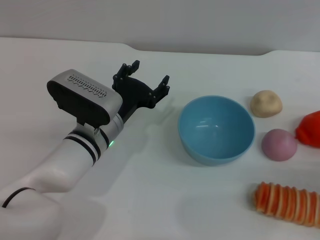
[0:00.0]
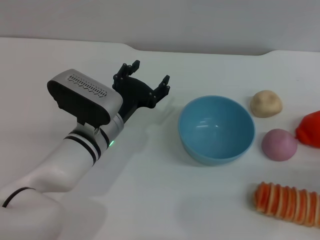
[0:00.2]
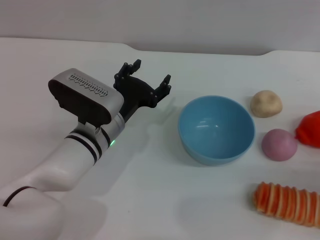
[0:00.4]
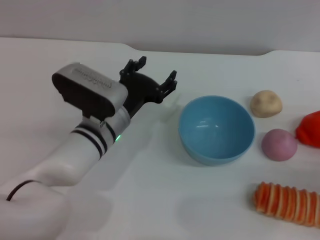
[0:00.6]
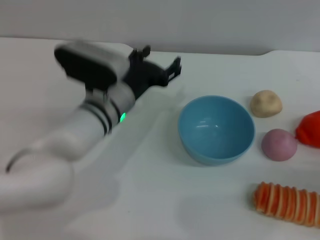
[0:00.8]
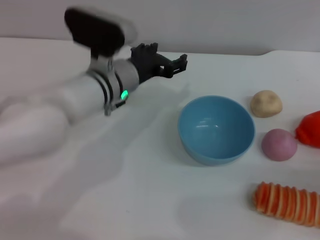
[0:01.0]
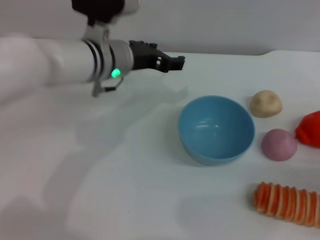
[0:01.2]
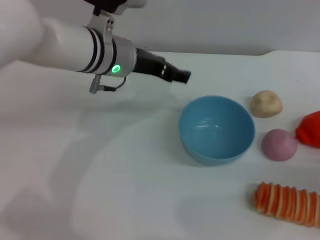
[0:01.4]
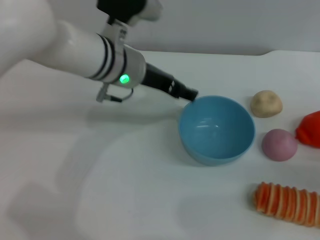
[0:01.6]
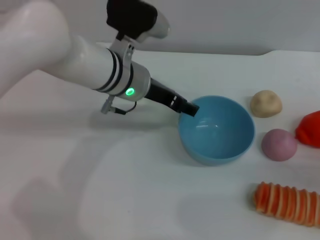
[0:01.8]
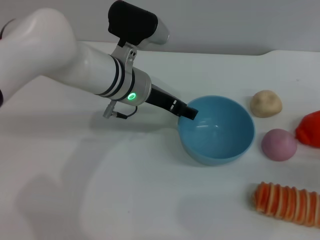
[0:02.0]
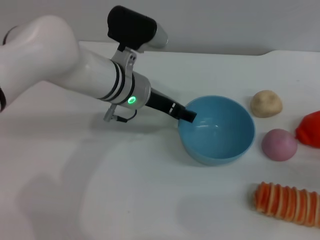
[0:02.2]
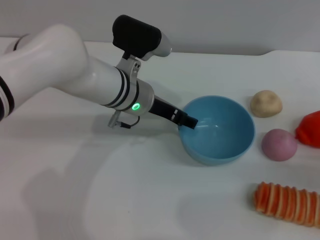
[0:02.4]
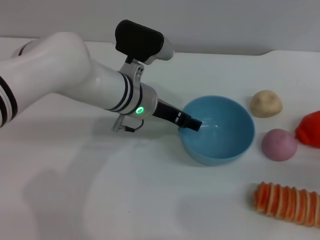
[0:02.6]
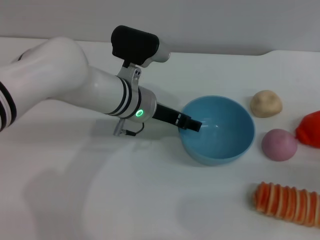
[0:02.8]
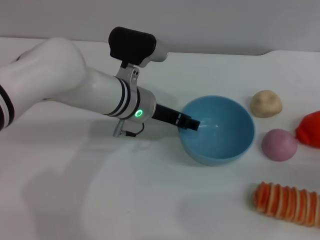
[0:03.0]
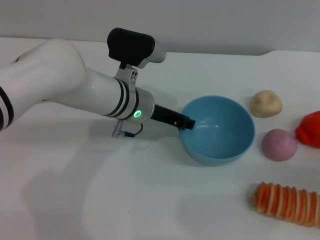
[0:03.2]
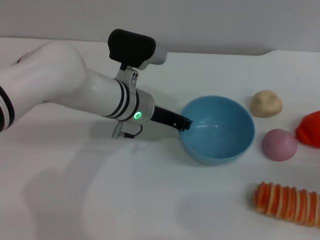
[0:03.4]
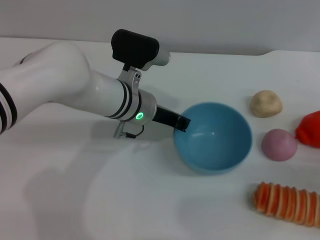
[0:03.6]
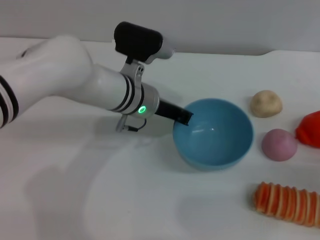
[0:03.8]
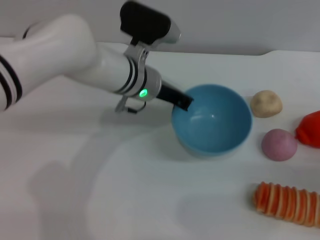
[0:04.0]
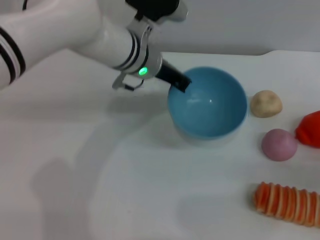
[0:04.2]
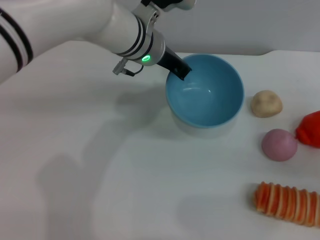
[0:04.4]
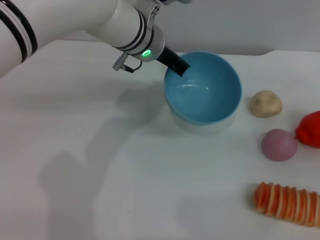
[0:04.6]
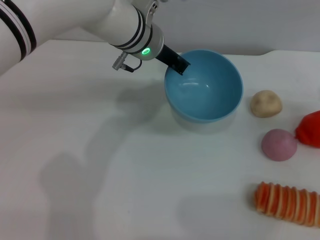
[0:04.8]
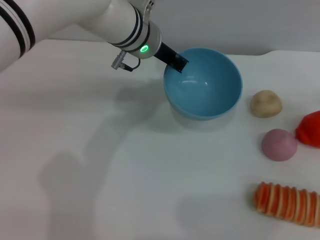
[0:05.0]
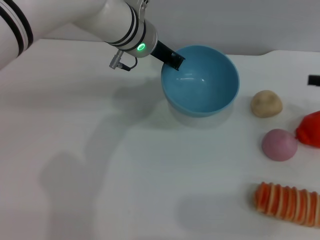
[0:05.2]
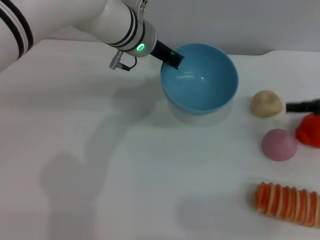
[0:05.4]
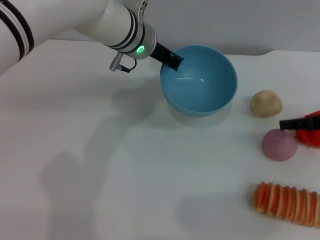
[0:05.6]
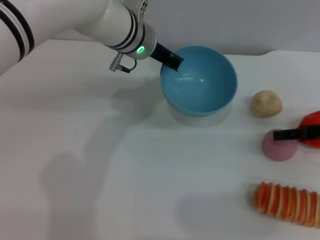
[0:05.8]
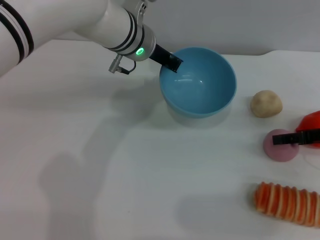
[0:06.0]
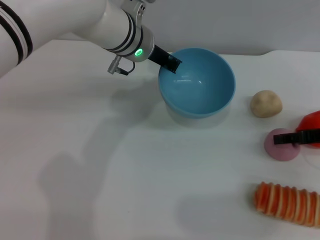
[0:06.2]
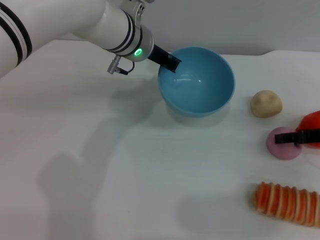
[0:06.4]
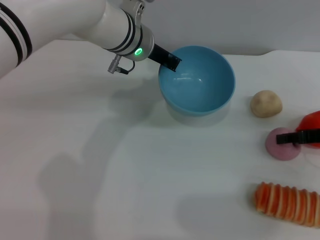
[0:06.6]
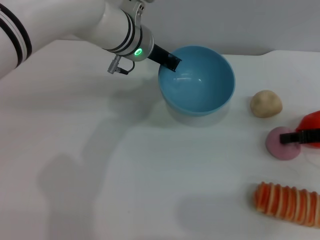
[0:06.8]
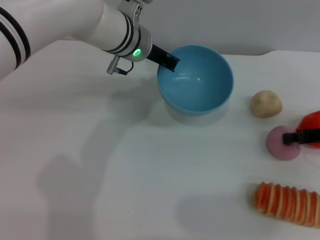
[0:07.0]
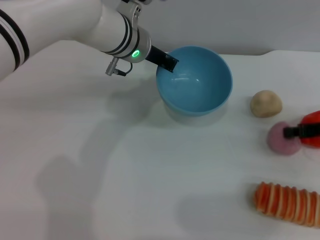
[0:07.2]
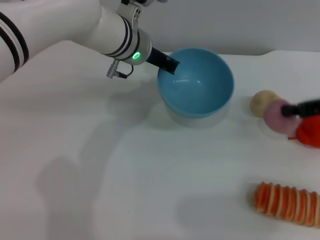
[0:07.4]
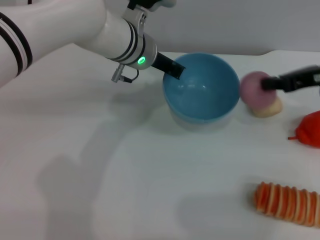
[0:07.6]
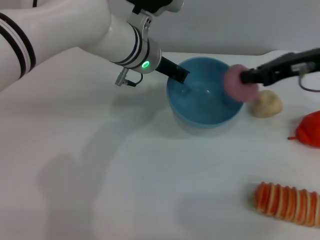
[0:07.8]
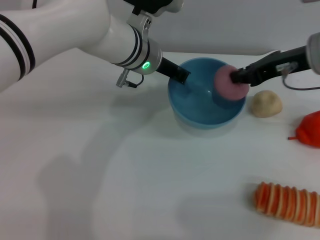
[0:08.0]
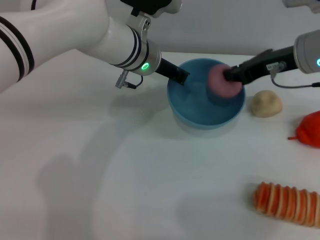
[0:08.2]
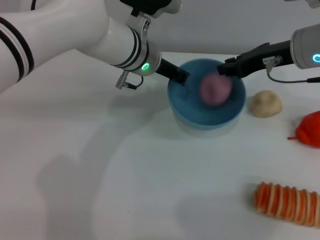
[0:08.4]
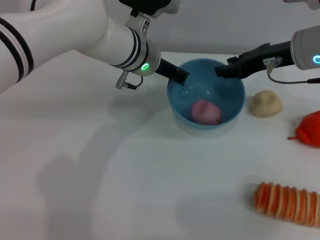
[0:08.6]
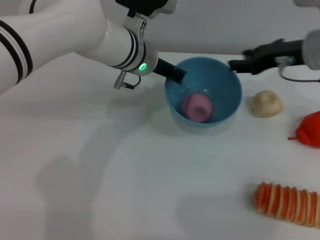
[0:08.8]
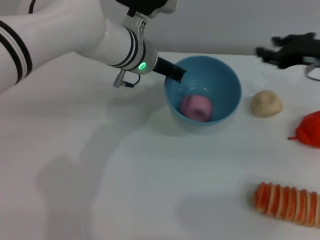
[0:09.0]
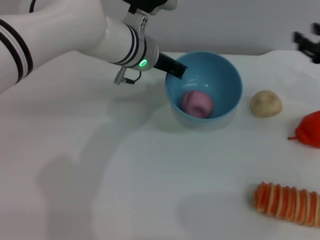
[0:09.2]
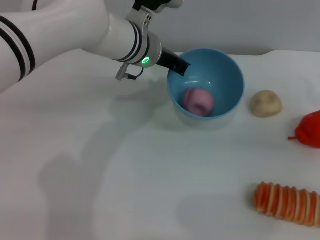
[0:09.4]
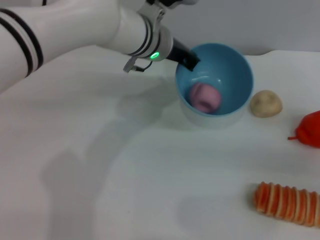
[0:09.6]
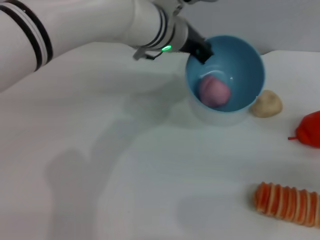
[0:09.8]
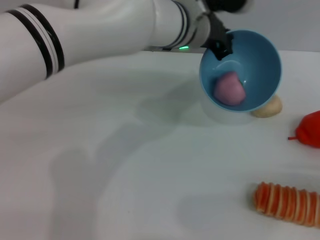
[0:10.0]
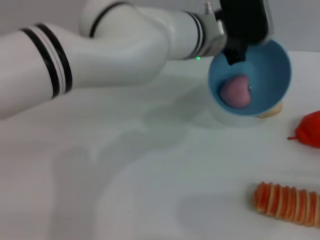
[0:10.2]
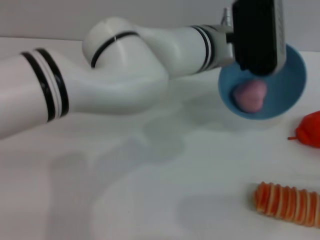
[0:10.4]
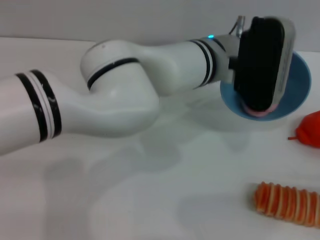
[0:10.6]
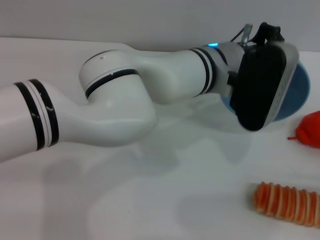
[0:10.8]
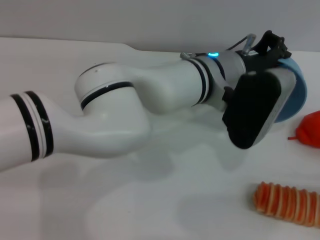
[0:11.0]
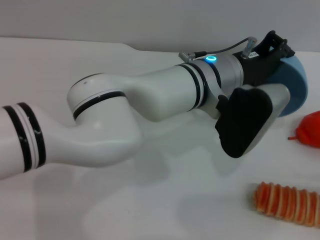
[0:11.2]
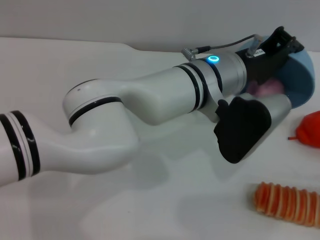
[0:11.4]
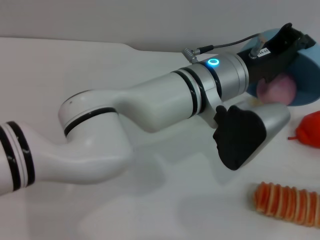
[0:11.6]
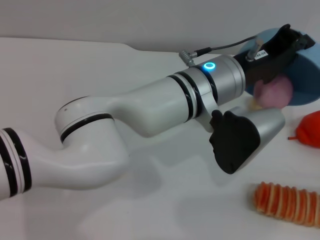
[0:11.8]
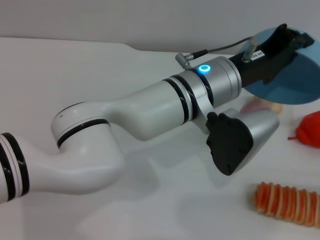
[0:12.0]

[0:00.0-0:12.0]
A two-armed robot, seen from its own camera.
Task of the whole recording: put the peach into the blue bowl and pour it out repeatedly.
Step, 0.0 to 4.0 s: Pick up the bowl with the left gripper.
Step, 4.2 to 7.2 s: Pick up the peach with the right gripper.
Step, 7.4 to 8.6 s: Place the peach into the bowl.
0.0 to 1.6 s: The left gripper shifts approximately 15 cm upward and forward.
1.6 to 3.0 s: The left gripper goes some 5 cm downward.
3.0 to 4.4 s: The left gripper shifts approximately 5 cm upward, and closes.
4.4 to 6.0 s: The right gripper travels upward and forward by some 10 cm.
6.0 to 7.6 s: The right gripper is displaced upward by about 10 cm, and closes up.
7.6 to 9.0 s: The right gripper opens its fingers.
9.0 to 10.4 s: The left gripper moves to the right, about 10 cm. Meanwhile the right gripper travels backward, downward and to the right by some 25 cm.
10.4 to 12.0 s: The left gripper shifts some 5 cm backward.

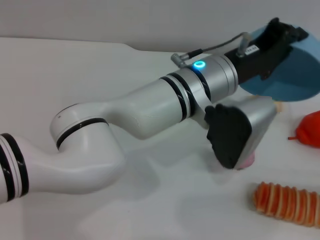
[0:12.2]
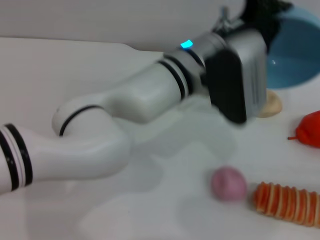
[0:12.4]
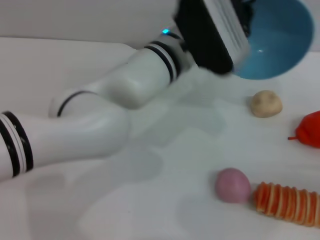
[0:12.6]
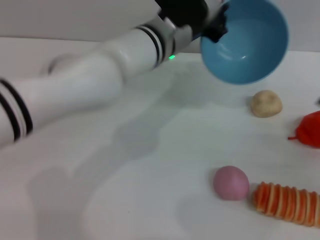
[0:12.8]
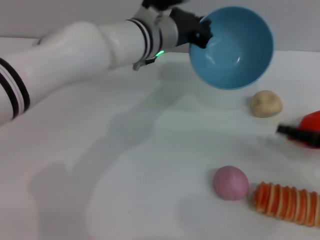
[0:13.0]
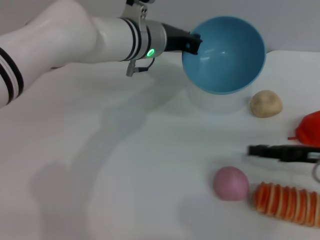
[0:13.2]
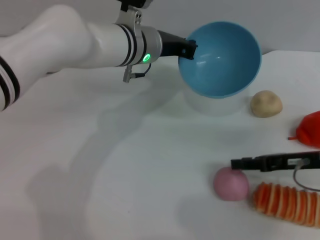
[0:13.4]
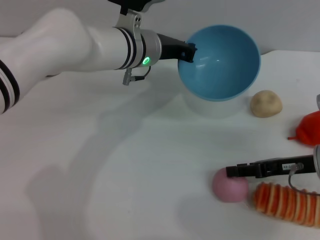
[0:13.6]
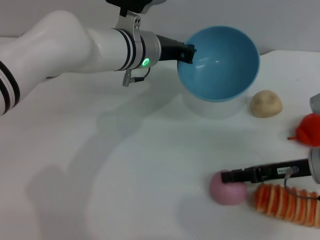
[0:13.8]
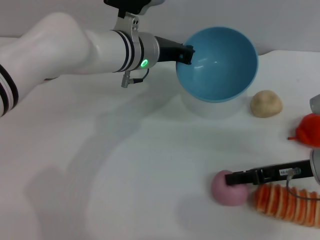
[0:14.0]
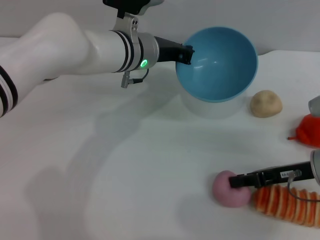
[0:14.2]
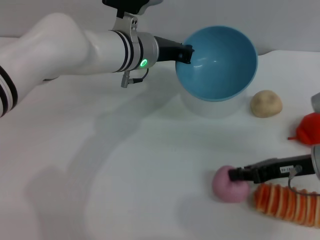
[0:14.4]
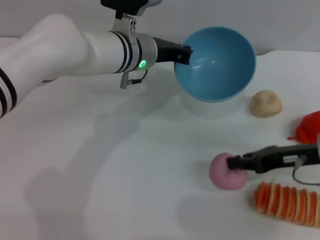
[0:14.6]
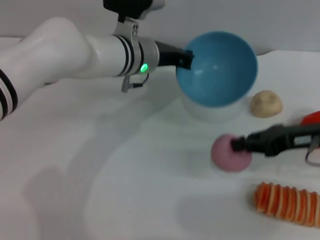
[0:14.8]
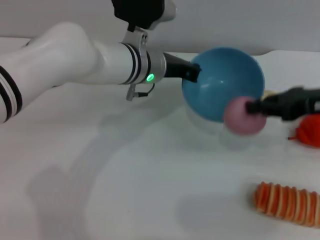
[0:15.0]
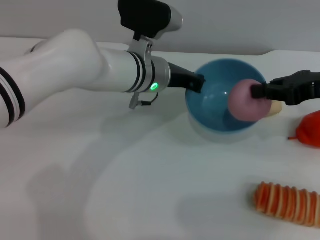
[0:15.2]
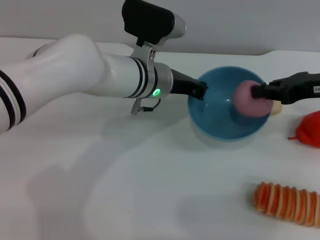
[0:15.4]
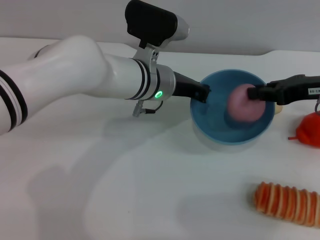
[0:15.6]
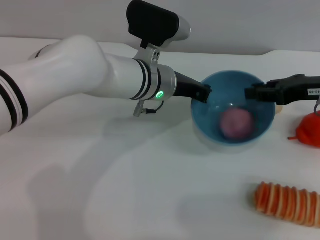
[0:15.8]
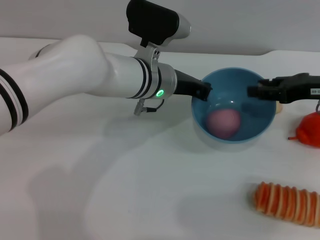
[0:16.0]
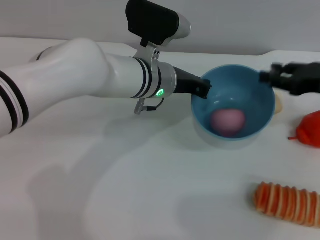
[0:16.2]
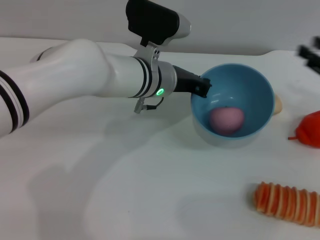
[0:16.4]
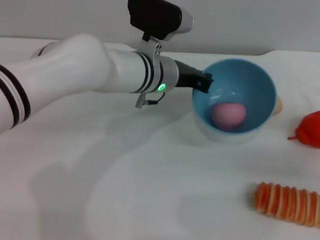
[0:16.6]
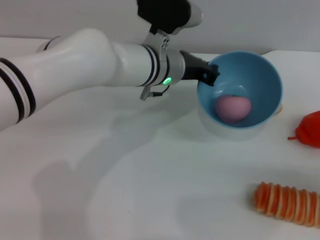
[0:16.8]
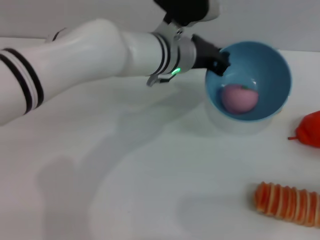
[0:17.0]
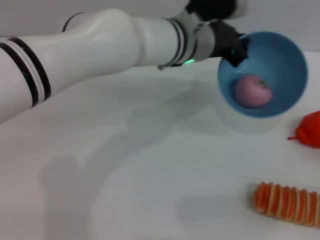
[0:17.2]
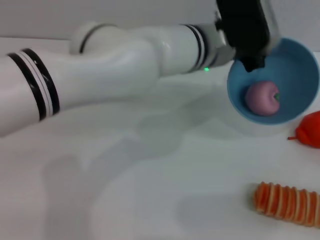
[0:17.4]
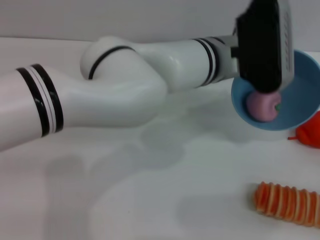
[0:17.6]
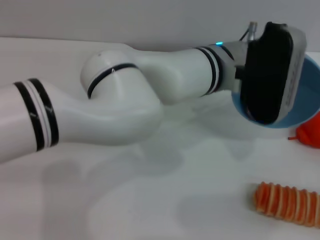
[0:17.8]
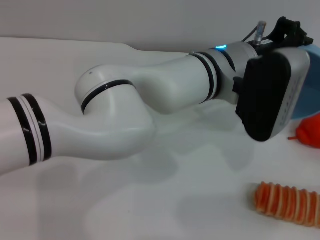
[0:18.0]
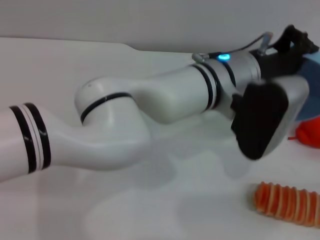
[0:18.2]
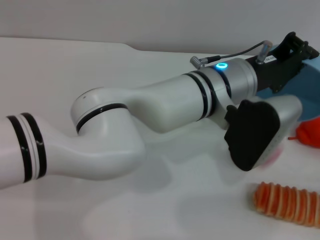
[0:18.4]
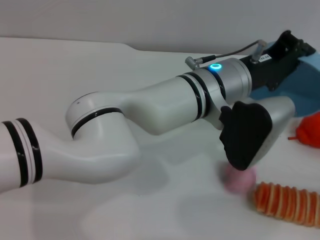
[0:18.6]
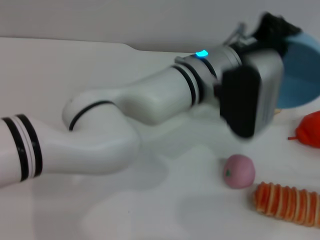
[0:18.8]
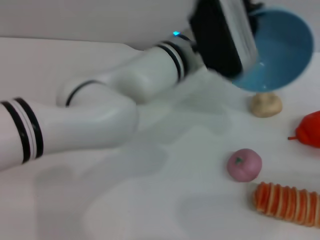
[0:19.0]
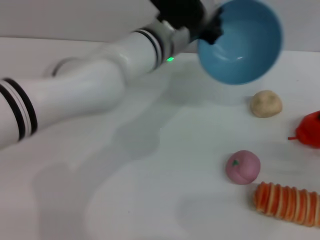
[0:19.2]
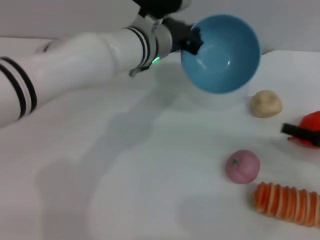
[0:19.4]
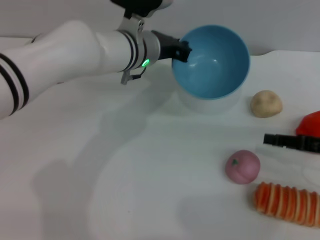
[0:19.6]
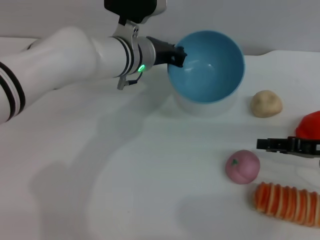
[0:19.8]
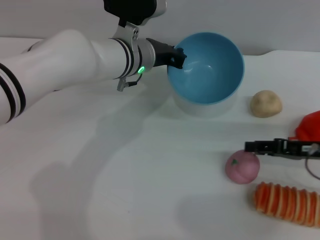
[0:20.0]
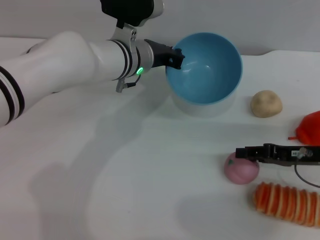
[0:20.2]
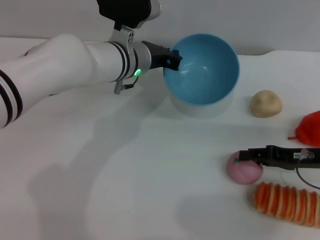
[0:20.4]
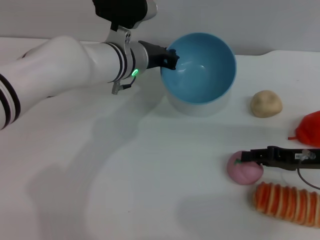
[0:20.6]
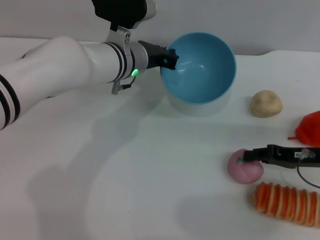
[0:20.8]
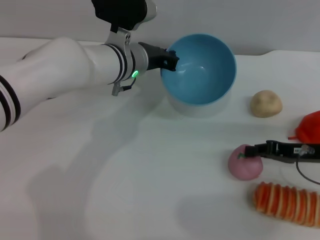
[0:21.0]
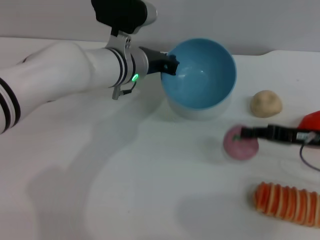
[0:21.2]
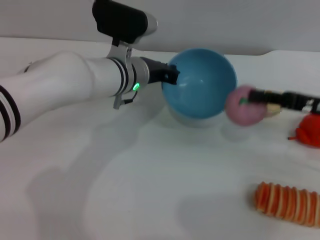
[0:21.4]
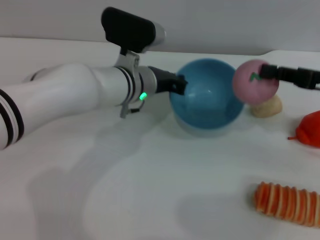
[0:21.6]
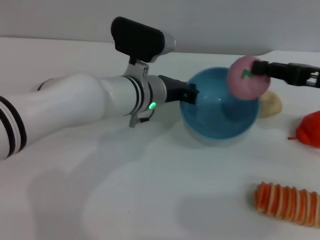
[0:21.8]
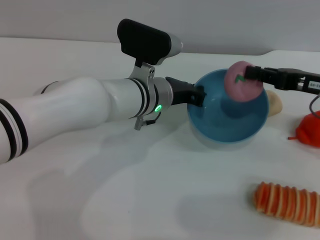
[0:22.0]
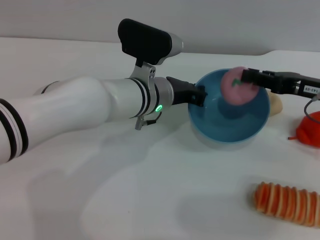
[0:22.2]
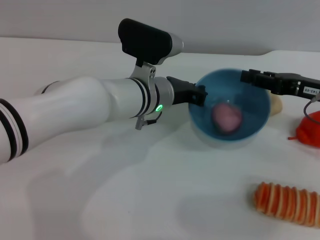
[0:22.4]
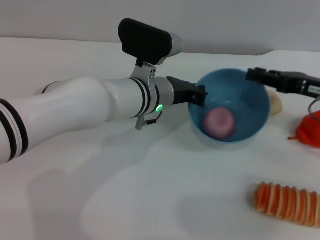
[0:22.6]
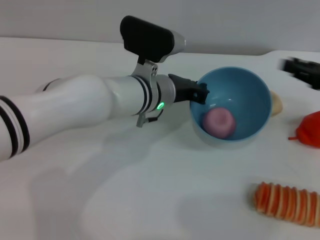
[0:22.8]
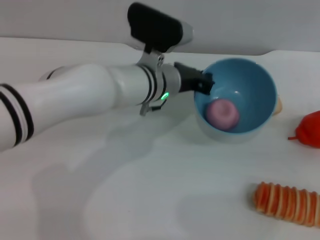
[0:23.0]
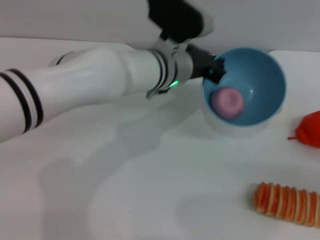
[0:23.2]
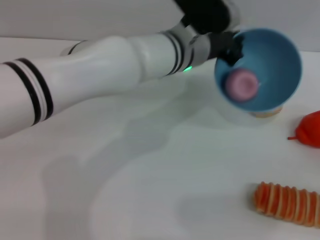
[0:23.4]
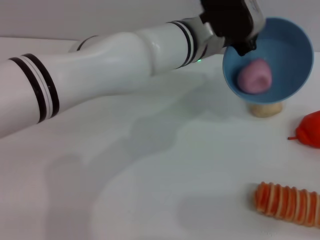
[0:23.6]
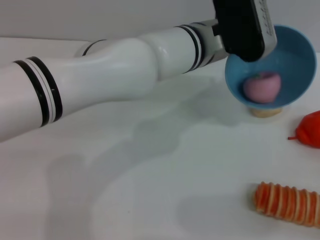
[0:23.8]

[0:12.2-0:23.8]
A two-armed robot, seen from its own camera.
Task of the whole recording: put the peach into the blue bowl and pour it out repeatedly.
Step, 12.4 to 14.6 s: Pick up the peach with the right gripper.
Step, 15.0 to 16.2 s: Place the peach into the bowl.
Step, 16.4 to 18.4 s: Pour the peach out of bowl.
Step, 18.6 to 21.2 s: Pick up the peach with the right gripper.
Step, 21.4 to 22.4 s: Place the peach into the bowl.
12.2 to 13.6 s: The left gripper is displaced forward and to the left by approximately 15 cm. Meanwhile the right gripper is displaced to the left and forward by approximately 15 cm.
13.6 to 15.0 s: The right gripper heads upward, covering approximately 10 cm, and closes its fingers.
15.0 to 16.6 s: The right gripper travels to the right and downward by some 10 cm, and opens up.
16.6 to 18.0 s: The left gripper shifts approximately 10 cm to the right. The right gripper is displaced backward and downward by roughly 10 cm.
18.0 to 19.4 s: The right gripper travels forward, to the left and upward by some 10 cm, while the left gripper is displaced to the left and forward by roughly 10 cm.
19.4 to 21.0 s: The right gripper moves to the left, some 5 cm, and closes its fingers.
21.0 to 22.4 s: The right gripper travels upward by some 5 cm; the left gripper ends up roughly 5 cm from where it was.
22.4 to 23.8 s: The left gripper goes approximately 10 cm upward and to the right. Meanwhile the right gripper goes about 25 cm backward, to the right and downward.
